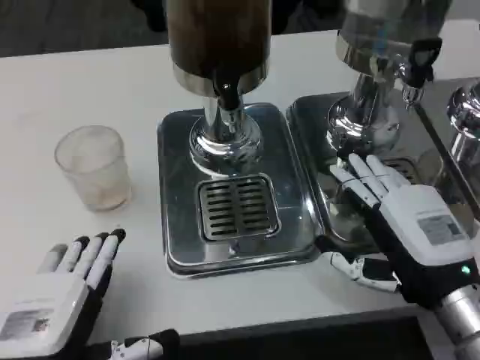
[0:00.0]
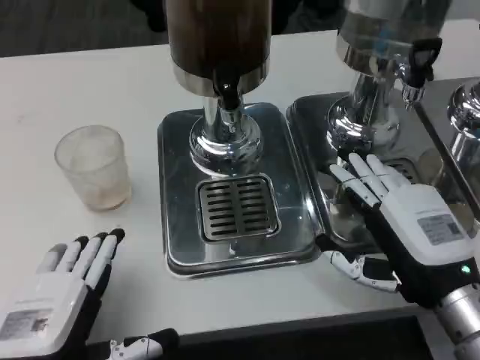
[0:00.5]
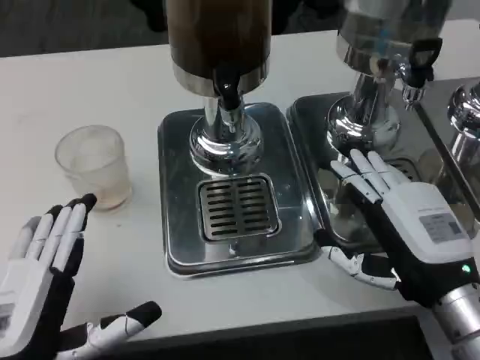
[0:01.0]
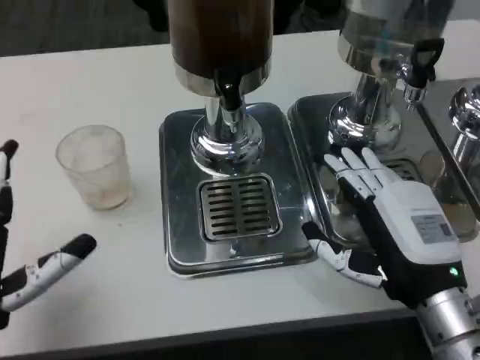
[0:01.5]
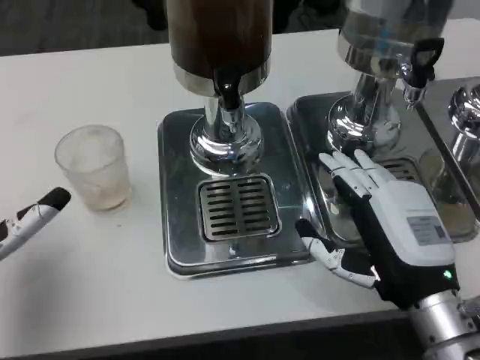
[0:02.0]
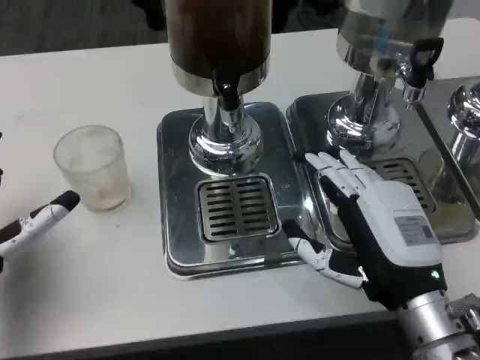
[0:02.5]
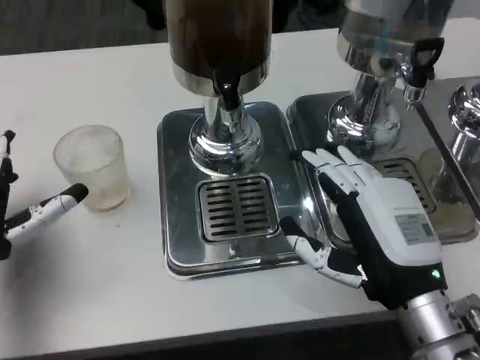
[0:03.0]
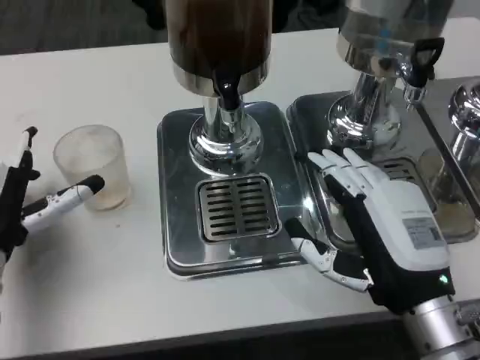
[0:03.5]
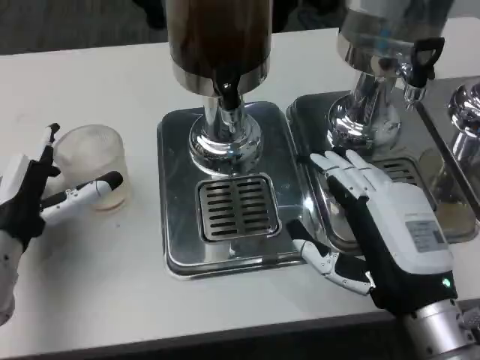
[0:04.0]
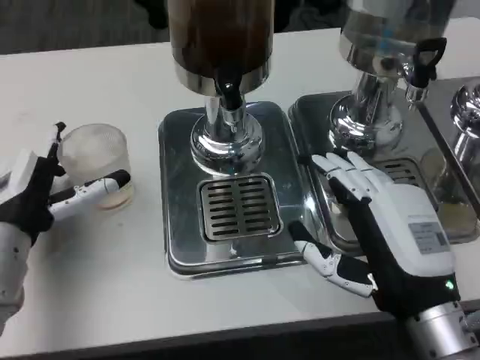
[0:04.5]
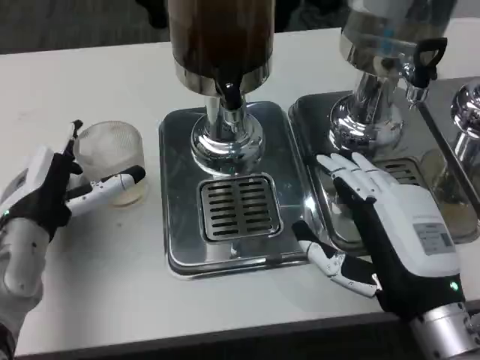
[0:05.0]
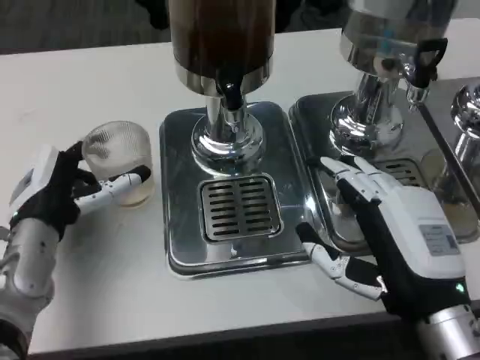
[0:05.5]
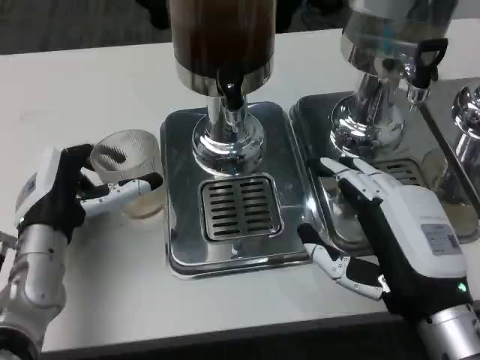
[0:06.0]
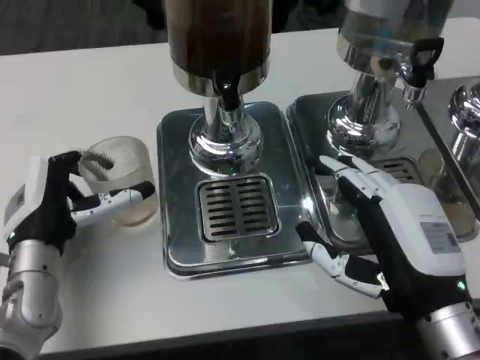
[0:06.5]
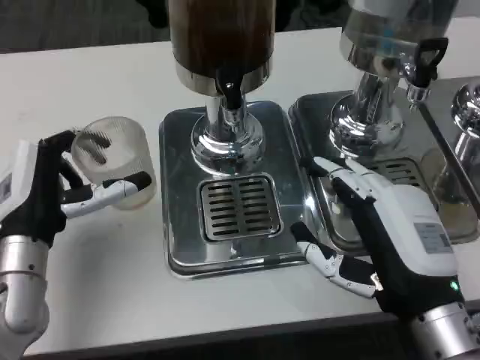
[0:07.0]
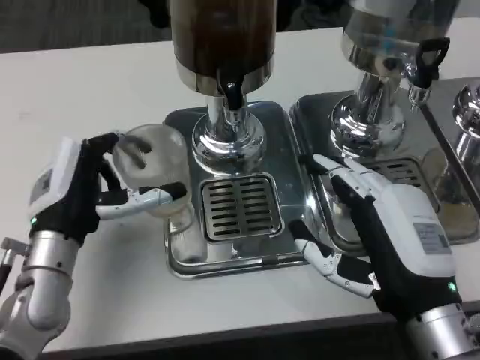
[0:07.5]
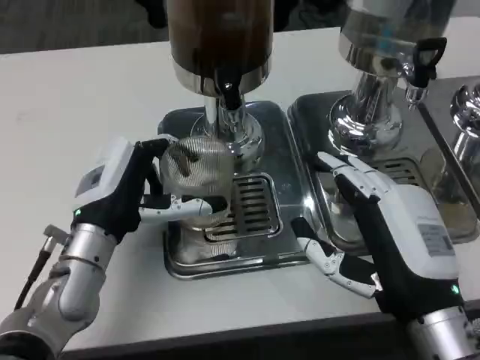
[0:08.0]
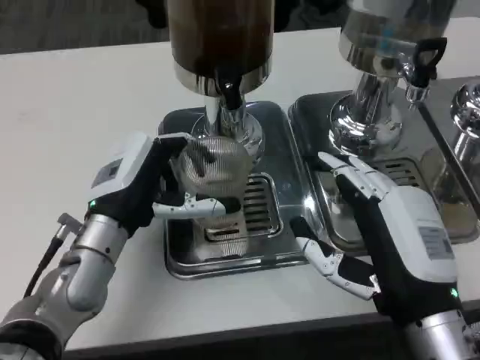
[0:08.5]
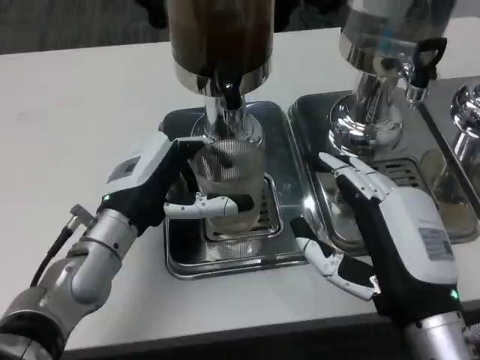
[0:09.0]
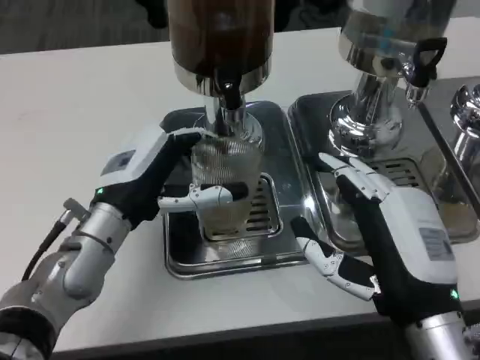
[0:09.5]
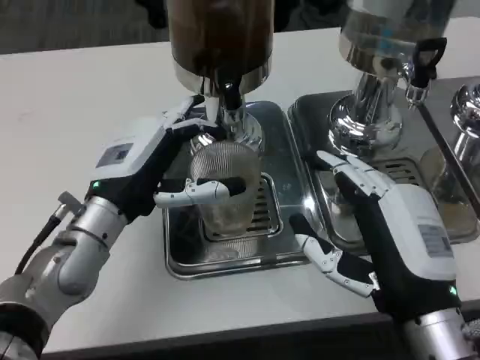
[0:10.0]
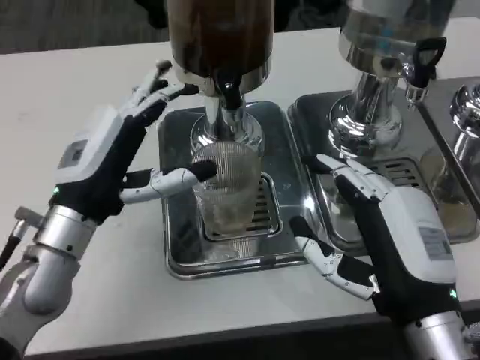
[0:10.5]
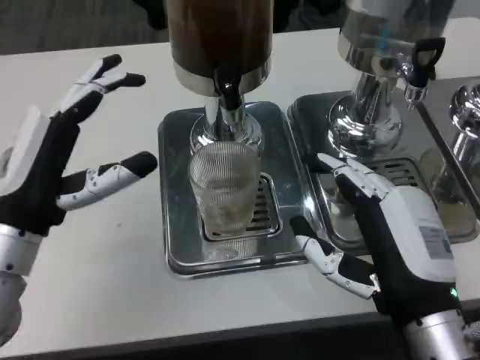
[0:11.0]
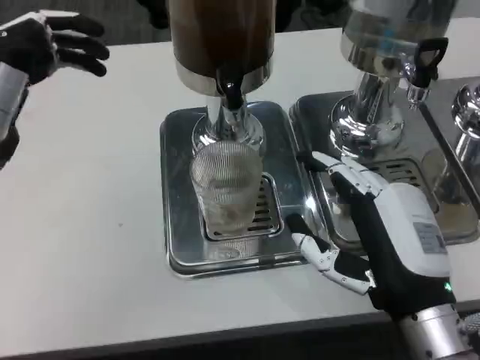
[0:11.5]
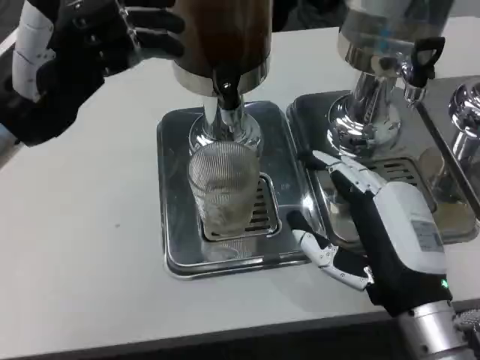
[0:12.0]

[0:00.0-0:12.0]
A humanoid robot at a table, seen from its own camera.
Task of the whole recording: Grasp the cup under the faucet to collect the drink, then remove the cup.
0:00.0 to 0:02.0: The left hand moves forward and to the left, about 10 cm.
0:02.0 to 0:04.0: The left hand is displaced forward by approximately 5 cm.
0:08.0 to 0:10.0: The hands make only small movements.
0:10.0 to 0:12.0: The left hand is displaced upward and to the left by approximately 15 cm.

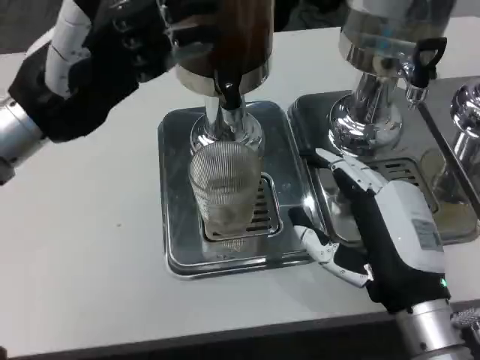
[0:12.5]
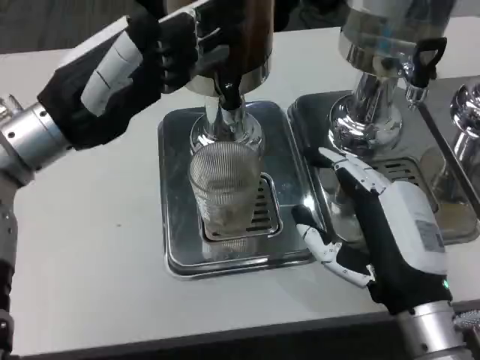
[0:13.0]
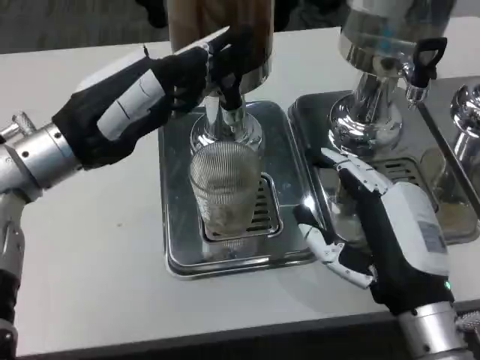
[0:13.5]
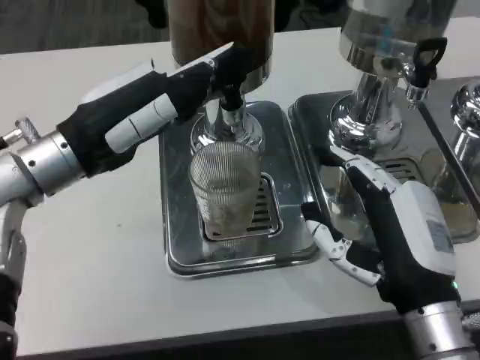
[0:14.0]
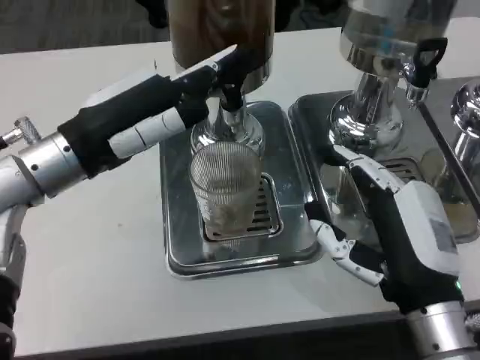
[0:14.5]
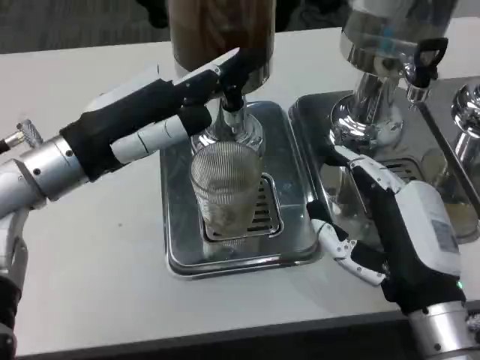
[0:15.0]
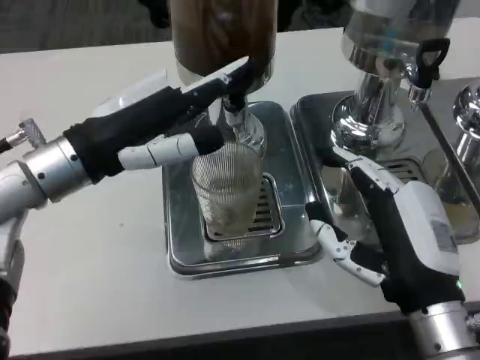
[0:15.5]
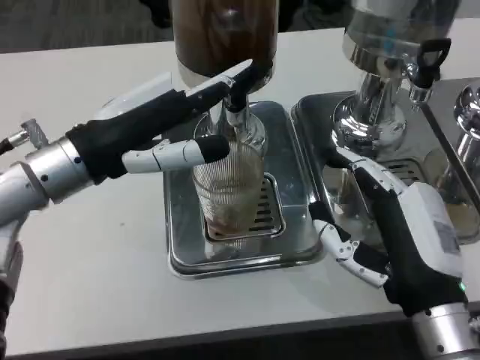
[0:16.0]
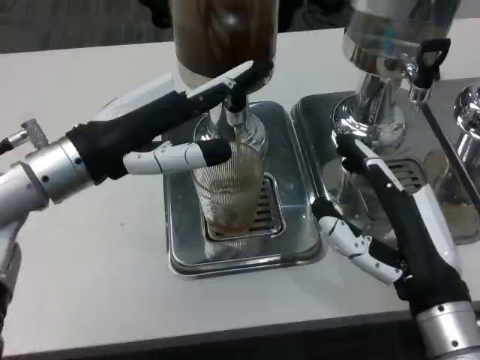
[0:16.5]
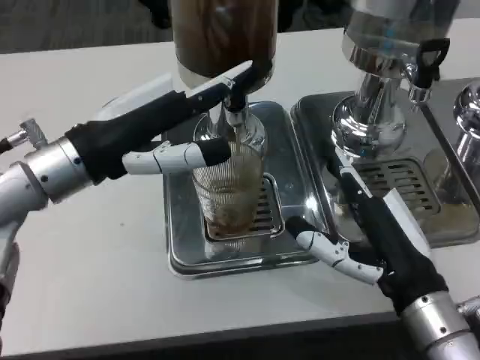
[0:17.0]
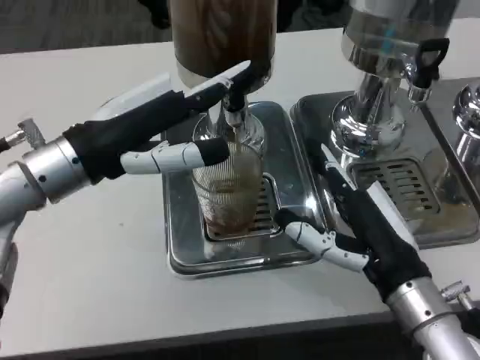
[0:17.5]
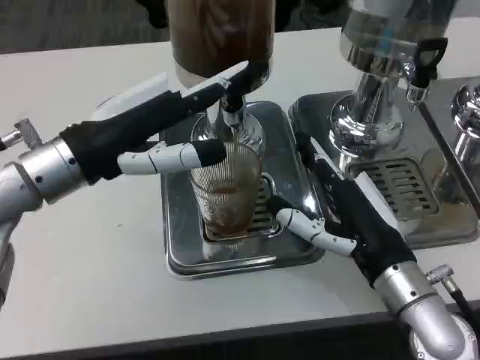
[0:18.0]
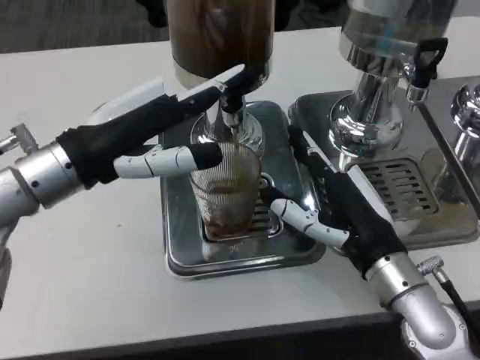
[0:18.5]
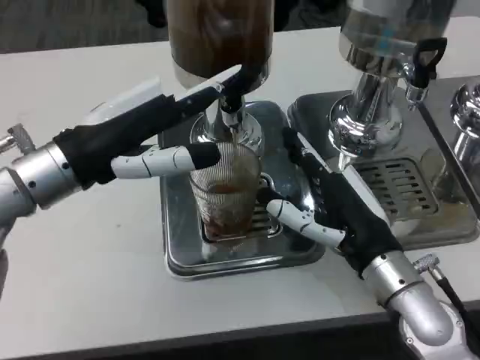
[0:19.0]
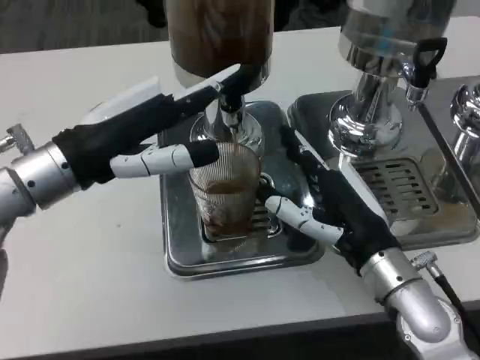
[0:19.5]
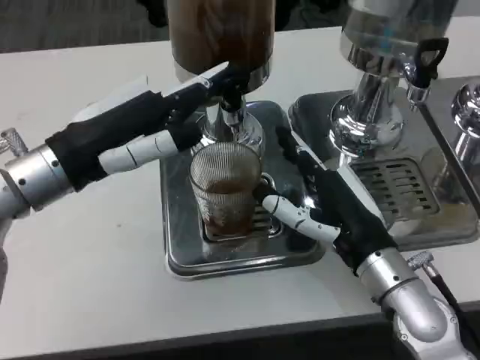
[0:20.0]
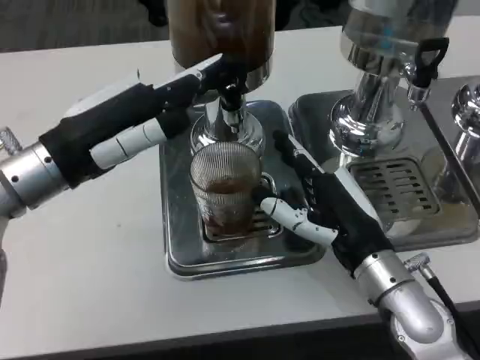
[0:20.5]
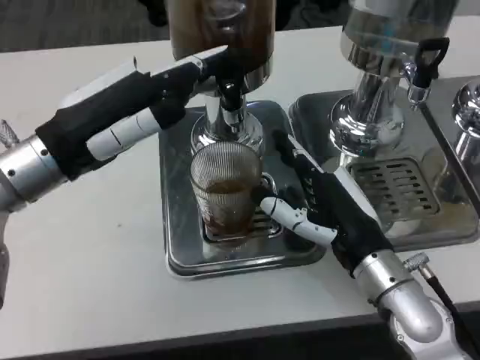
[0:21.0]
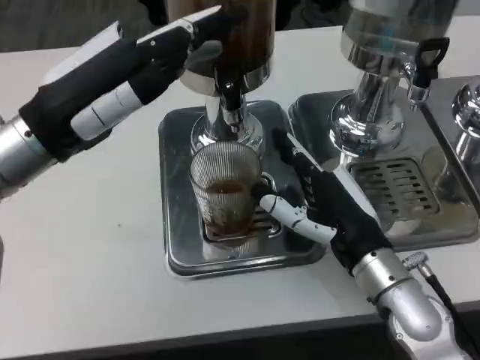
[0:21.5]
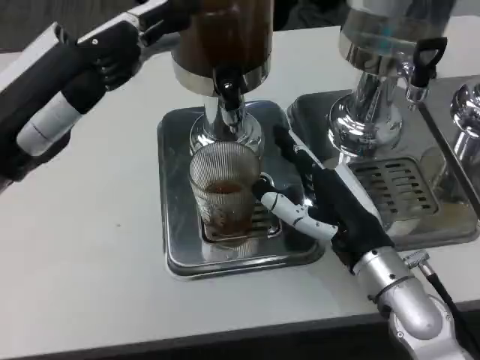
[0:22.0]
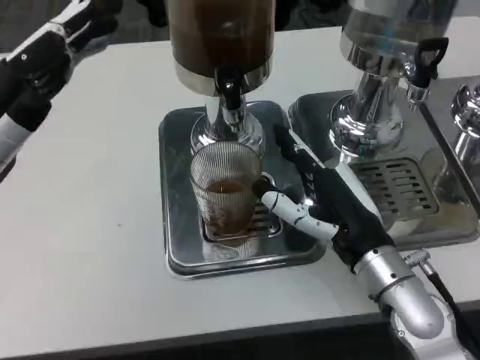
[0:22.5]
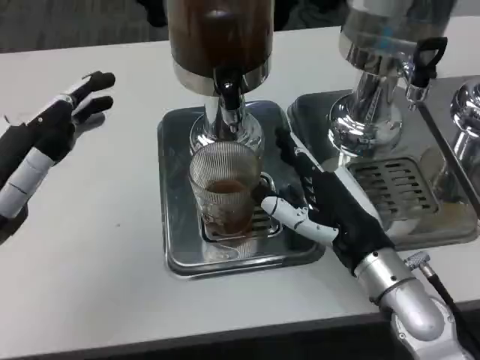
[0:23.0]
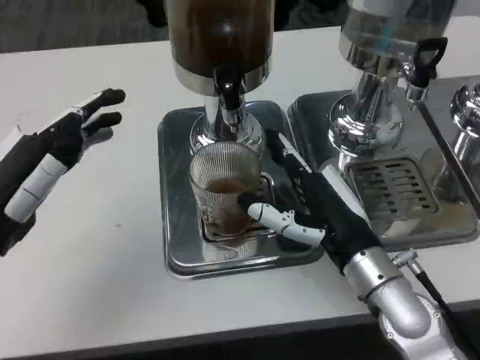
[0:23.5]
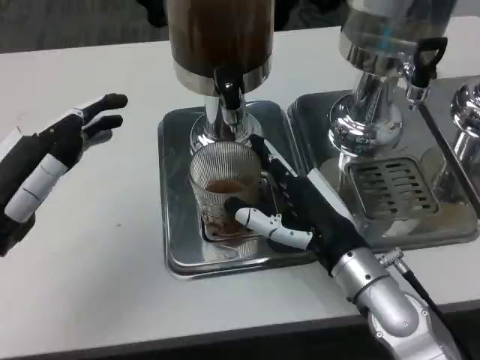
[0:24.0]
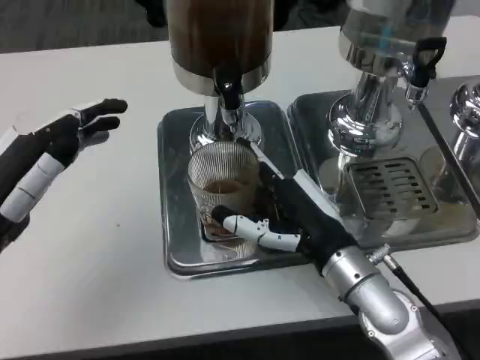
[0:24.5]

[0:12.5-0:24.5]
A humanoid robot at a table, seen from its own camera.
Task of the whole recording: Grasp the cup under the faucet to collect the drink, then remove the cup.
0:16.5 to 0:18.5: The right hand goes approximately 5 cm forward.
0:18.5 to 0:20.5: The hands make only small movements.
0:20.5 to 0:22.5: The left hand shifts some 5 cm backward.
0:22.5 to 0:24.5: The left hand heads downward, covering about 5 cm.

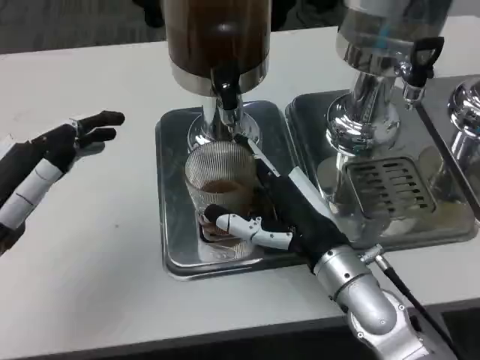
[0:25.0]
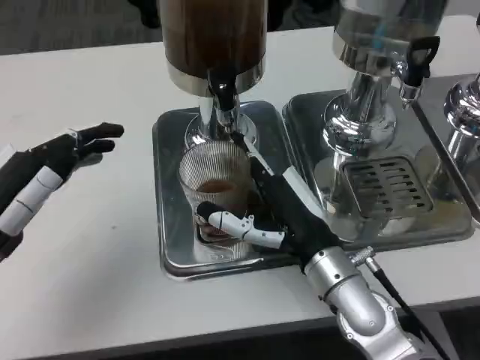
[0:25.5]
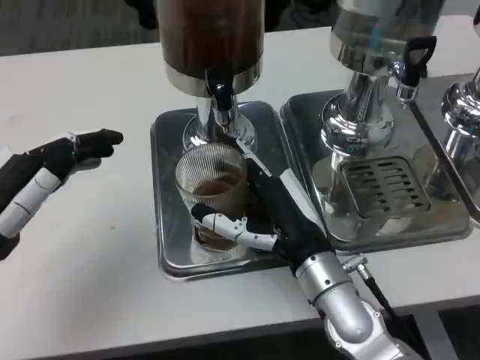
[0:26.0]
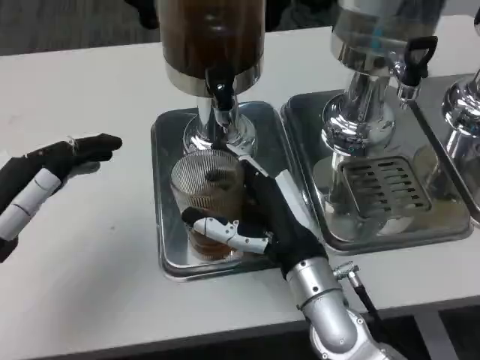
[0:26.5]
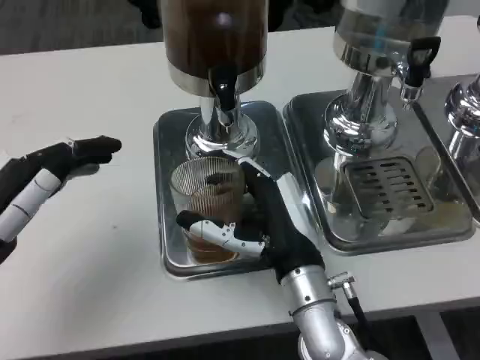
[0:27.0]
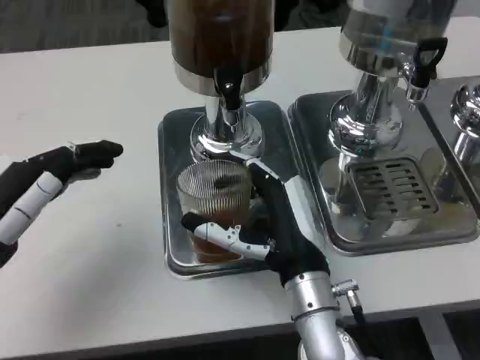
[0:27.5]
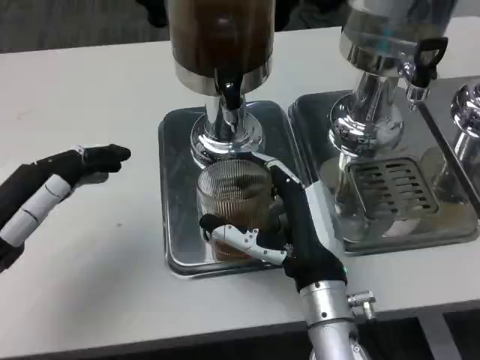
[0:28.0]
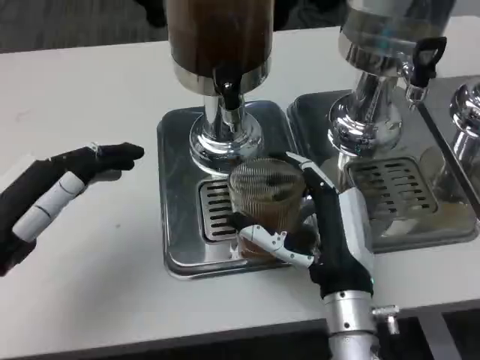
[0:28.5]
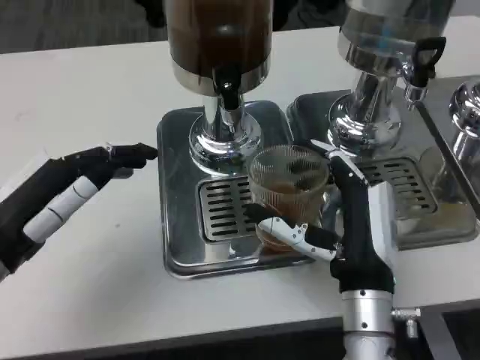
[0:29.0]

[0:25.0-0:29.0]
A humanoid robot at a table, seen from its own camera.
Task of the whole recording: Grasp the cup under the faucet to collect the drink, then remove the cup.
0:25.0 to 0:27.0: The right hand ends up some 5 cm from where it was.
